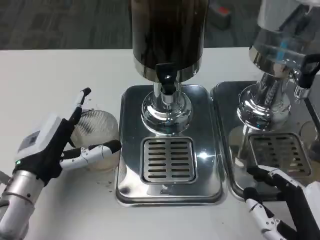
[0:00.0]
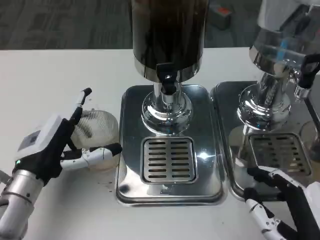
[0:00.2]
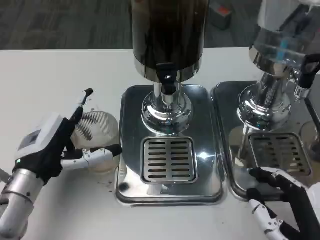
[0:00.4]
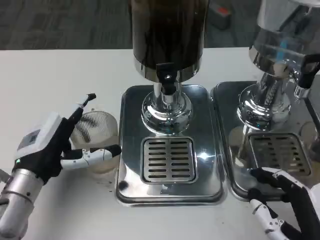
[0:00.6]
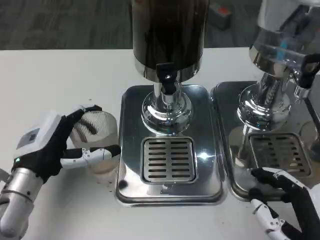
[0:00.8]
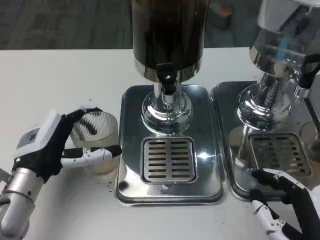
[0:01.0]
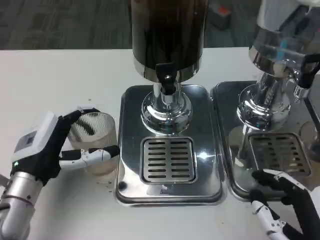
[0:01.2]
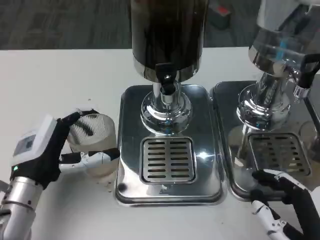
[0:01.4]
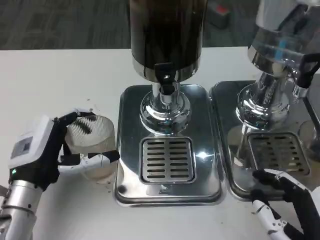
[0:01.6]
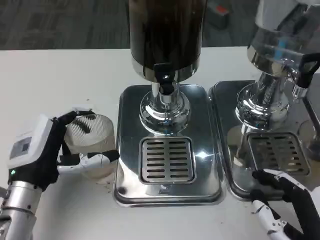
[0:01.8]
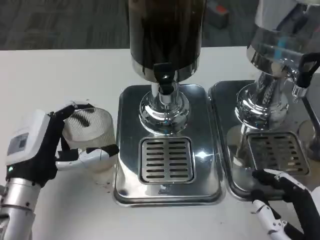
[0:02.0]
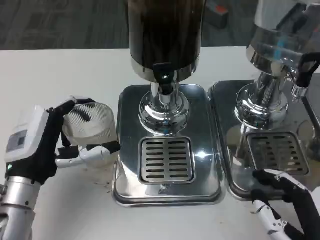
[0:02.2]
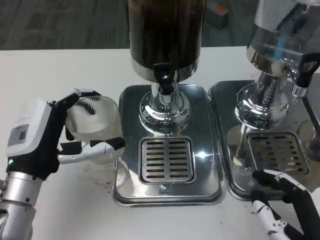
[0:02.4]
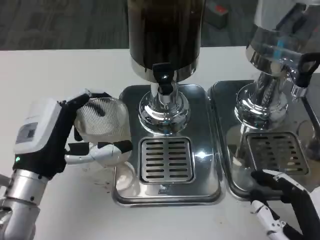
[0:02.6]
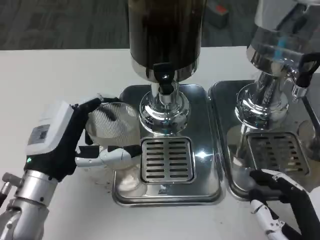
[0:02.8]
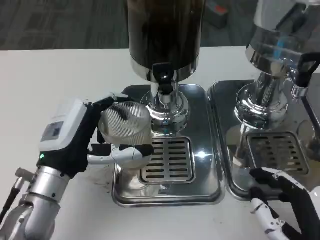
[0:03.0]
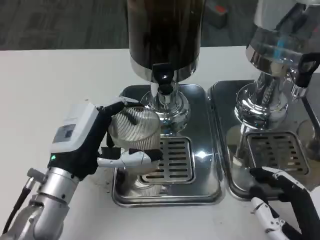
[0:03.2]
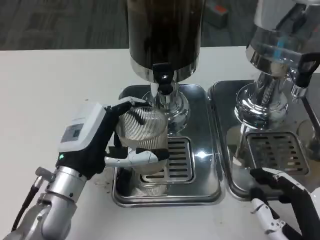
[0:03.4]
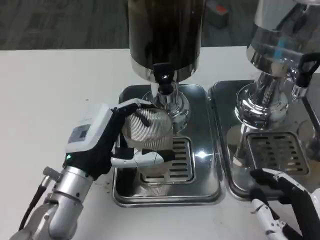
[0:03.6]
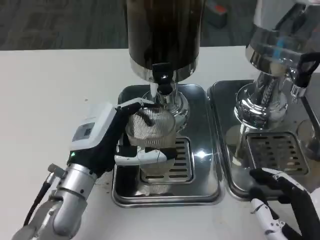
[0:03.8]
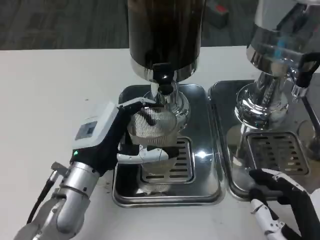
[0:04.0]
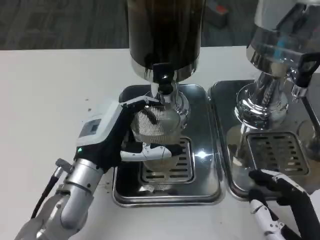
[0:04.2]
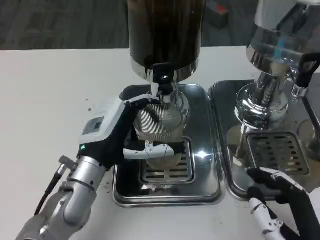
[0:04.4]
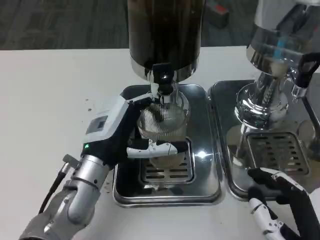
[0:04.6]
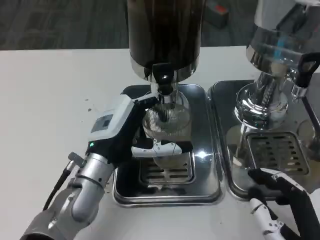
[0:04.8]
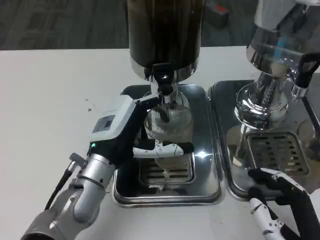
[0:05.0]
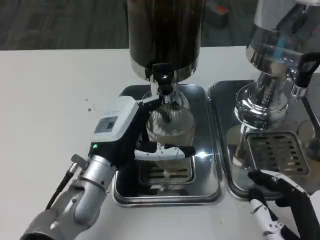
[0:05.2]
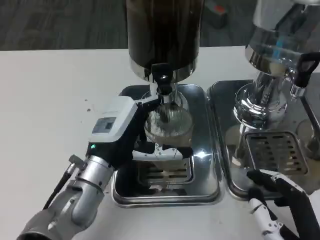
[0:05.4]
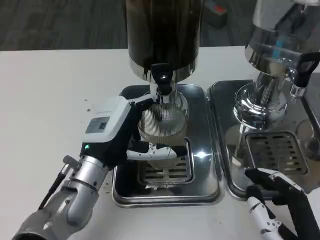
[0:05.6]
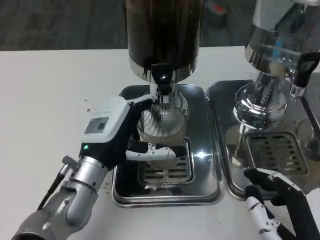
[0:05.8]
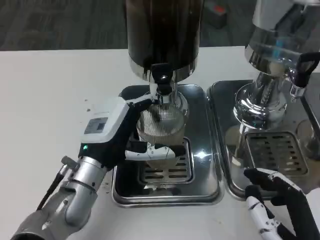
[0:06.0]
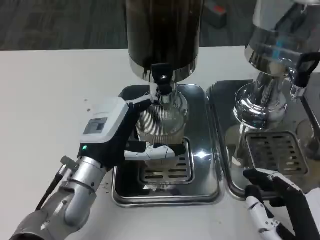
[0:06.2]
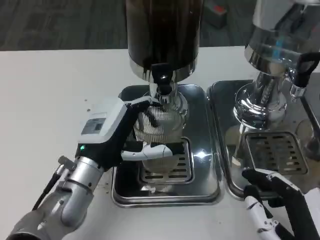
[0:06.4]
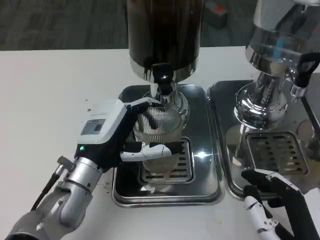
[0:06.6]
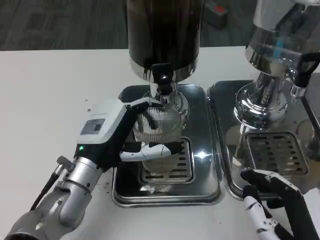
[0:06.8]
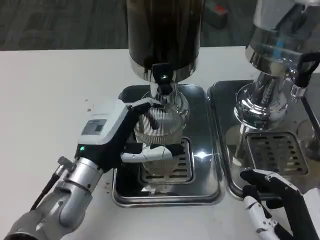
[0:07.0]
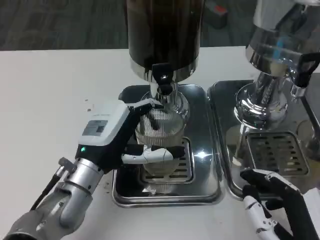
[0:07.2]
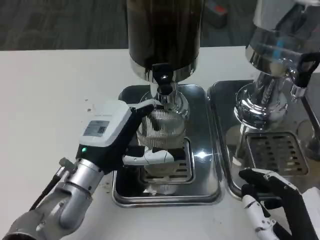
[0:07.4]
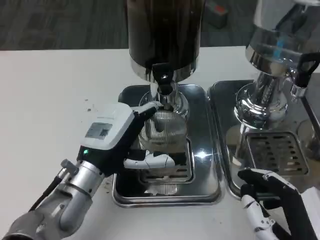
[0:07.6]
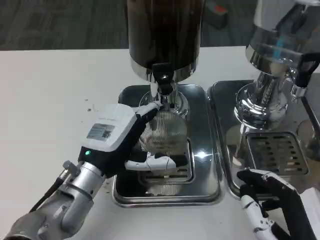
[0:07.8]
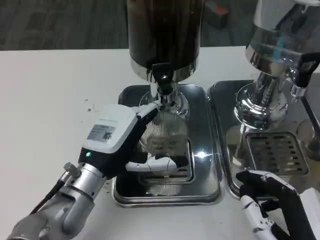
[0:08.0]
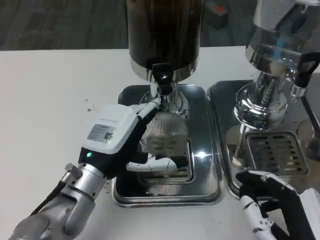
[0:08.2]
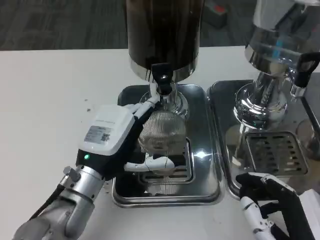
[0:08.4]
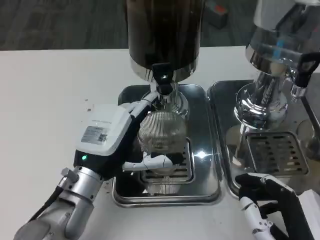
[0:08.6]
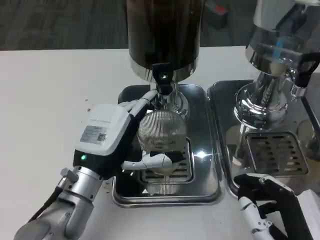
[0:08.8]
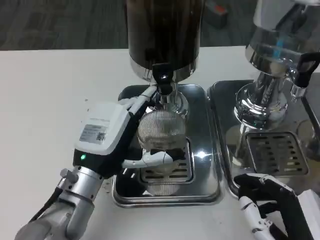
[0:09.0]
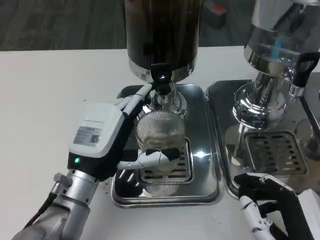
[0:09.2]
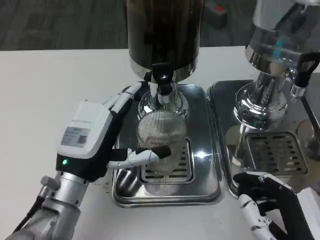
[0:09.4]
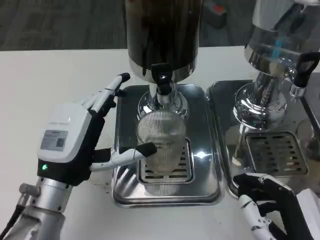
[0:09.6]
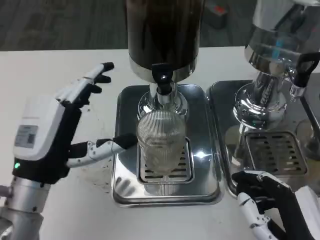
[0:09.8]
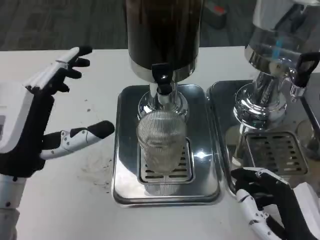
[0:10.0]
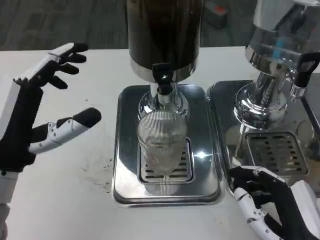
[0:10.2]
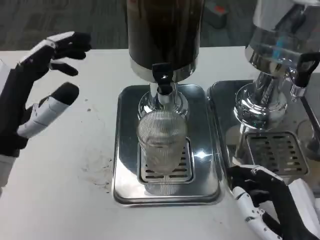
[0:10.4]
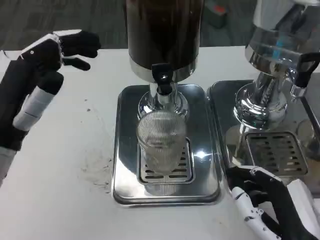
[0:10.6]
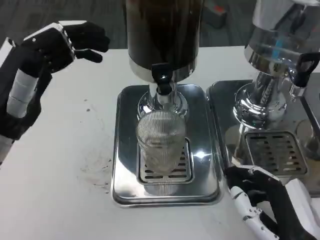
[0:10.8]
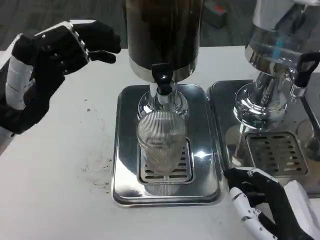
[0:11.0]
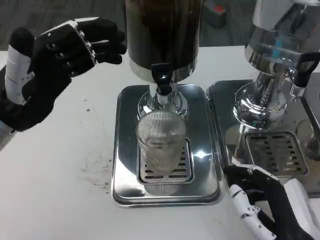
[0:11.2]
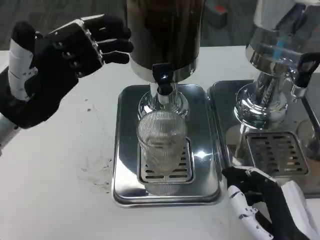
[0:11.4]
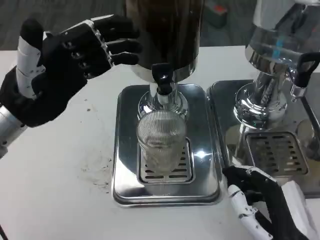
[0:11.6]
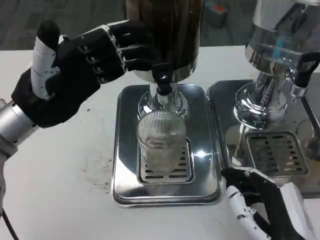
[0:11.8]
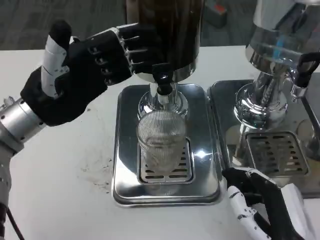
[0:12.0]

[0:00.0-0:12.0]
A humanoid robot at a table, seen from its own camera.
Task of the whole recording: Grasp the cup under the faucet to collect the drink, then remove the cup.
0:00.0 to 0:01.6: There are only small adjustments of the hands.
0:03.0 to 0:04.4: The left hand changes place by approximately 5 cm.
0:04.4 to 0:07.6: There are only small adjustments of the hands.
0:07.6 to 0:09.0: The hands move only a little.
0:09.0 to 0:10.4: The left hand travels to the left and upward by approximately 10 cm.
0:10.4 to 0:12.0: The left hand moves forward, about 10 cm.

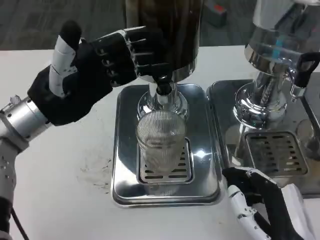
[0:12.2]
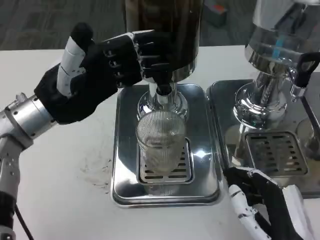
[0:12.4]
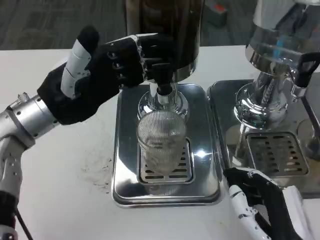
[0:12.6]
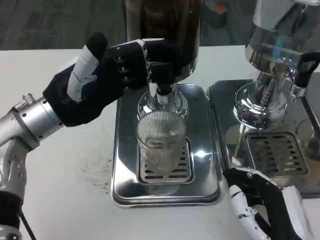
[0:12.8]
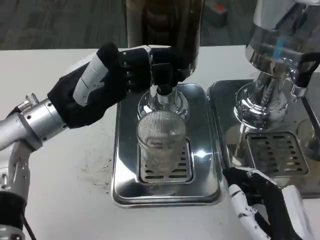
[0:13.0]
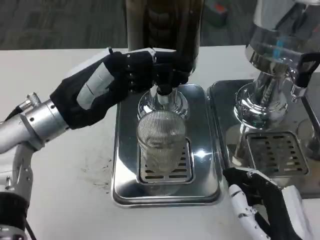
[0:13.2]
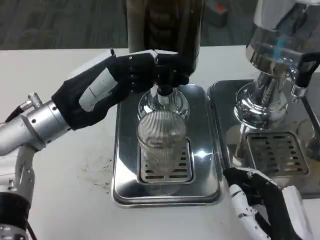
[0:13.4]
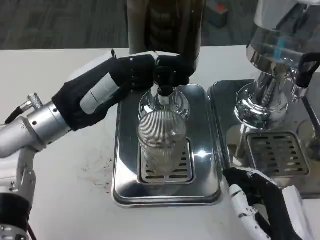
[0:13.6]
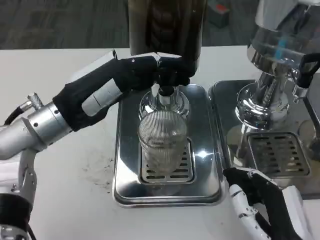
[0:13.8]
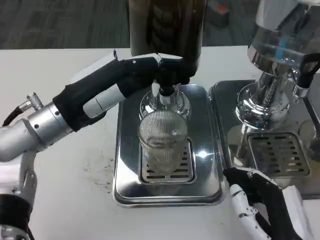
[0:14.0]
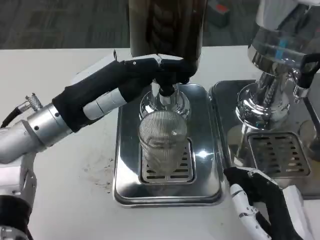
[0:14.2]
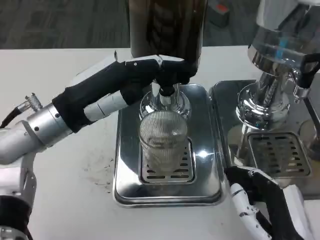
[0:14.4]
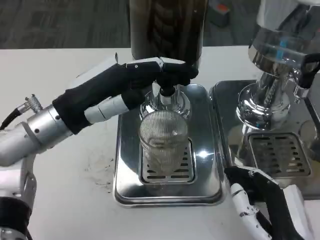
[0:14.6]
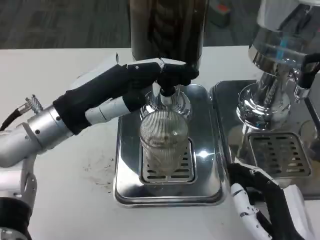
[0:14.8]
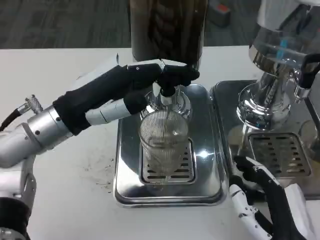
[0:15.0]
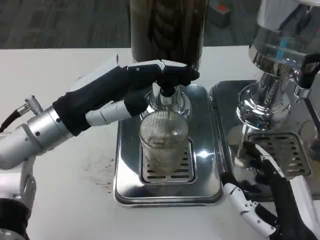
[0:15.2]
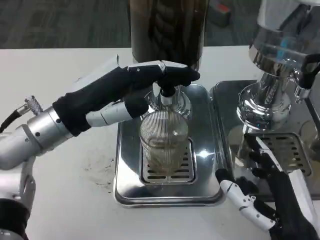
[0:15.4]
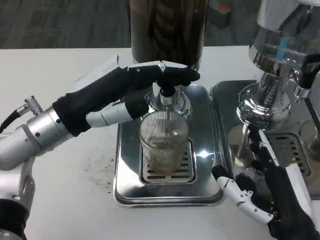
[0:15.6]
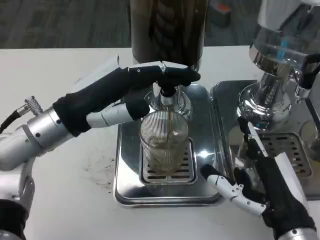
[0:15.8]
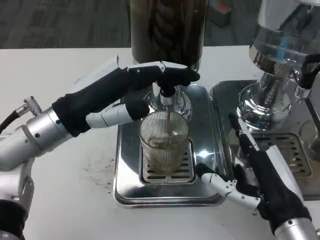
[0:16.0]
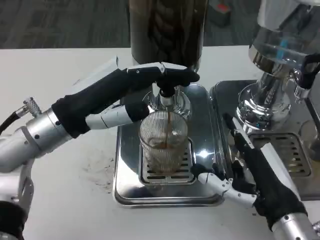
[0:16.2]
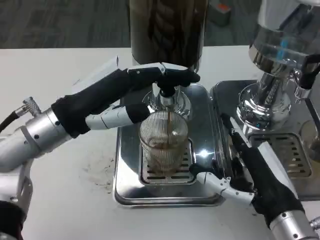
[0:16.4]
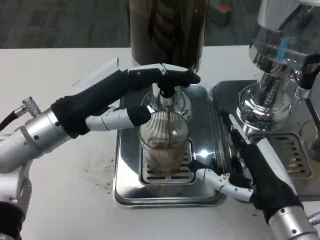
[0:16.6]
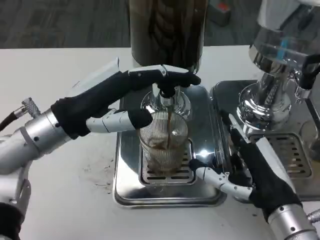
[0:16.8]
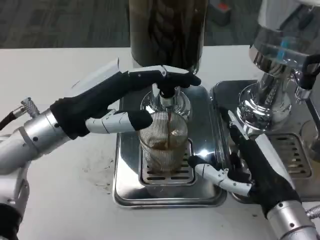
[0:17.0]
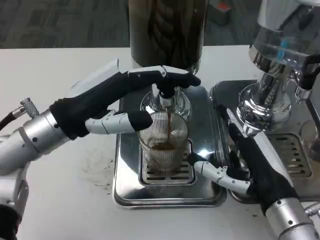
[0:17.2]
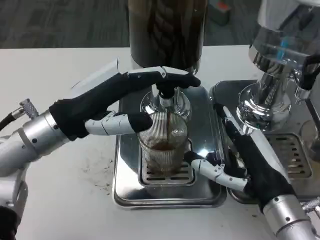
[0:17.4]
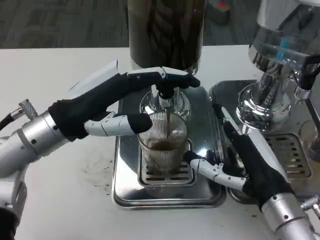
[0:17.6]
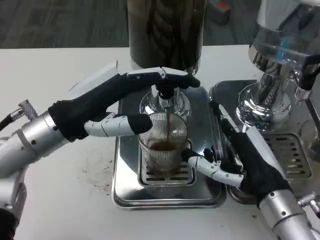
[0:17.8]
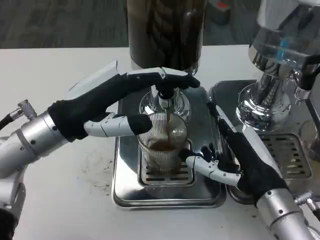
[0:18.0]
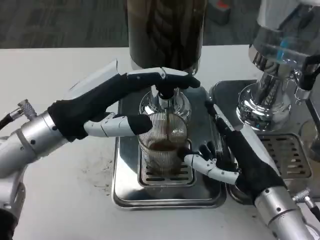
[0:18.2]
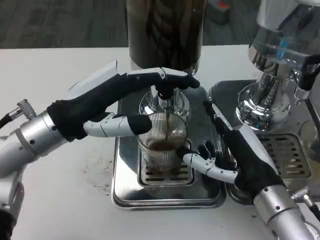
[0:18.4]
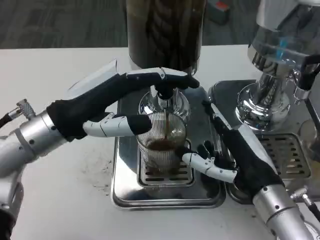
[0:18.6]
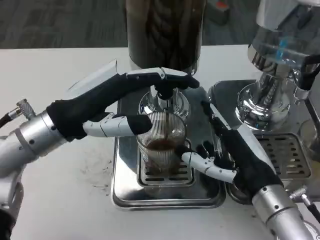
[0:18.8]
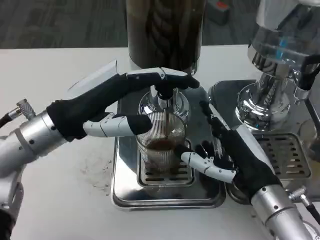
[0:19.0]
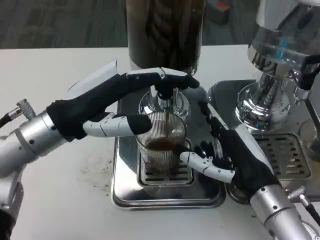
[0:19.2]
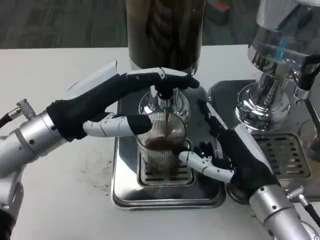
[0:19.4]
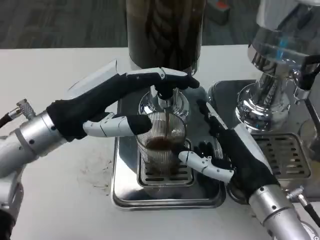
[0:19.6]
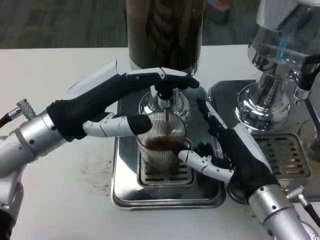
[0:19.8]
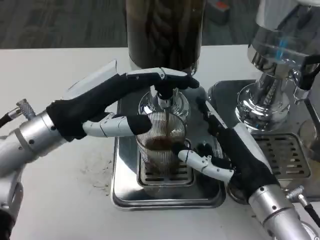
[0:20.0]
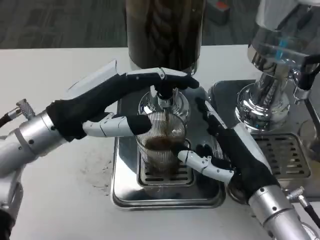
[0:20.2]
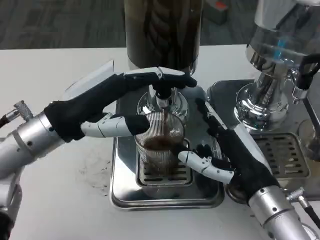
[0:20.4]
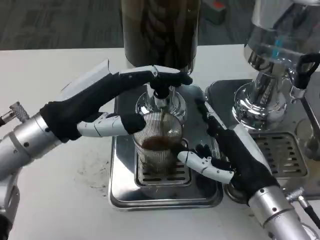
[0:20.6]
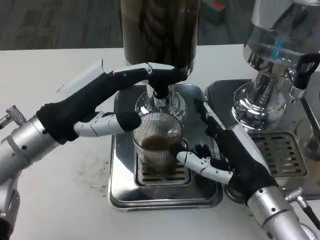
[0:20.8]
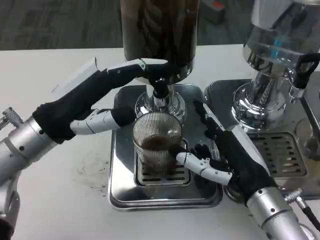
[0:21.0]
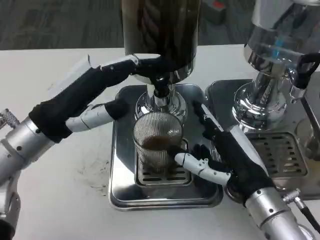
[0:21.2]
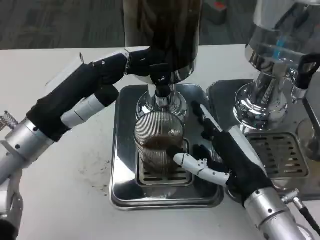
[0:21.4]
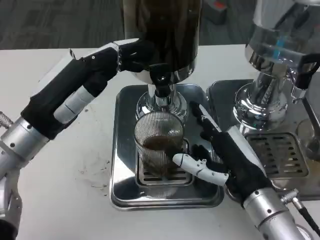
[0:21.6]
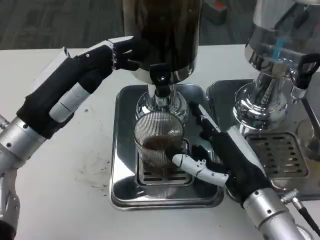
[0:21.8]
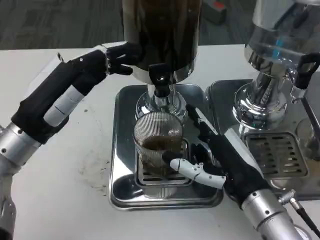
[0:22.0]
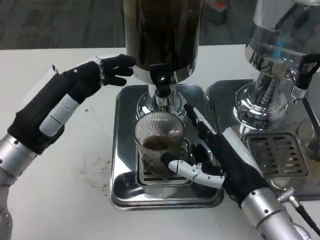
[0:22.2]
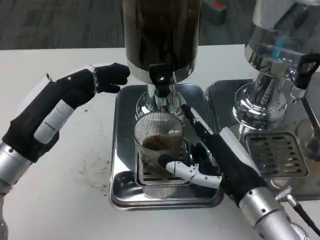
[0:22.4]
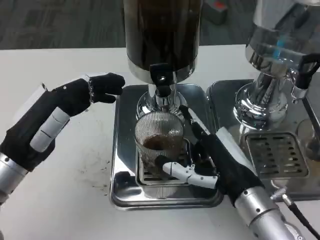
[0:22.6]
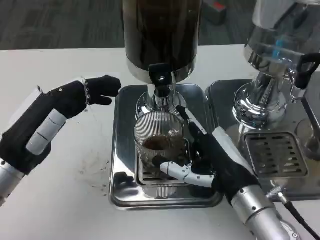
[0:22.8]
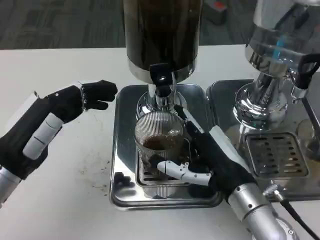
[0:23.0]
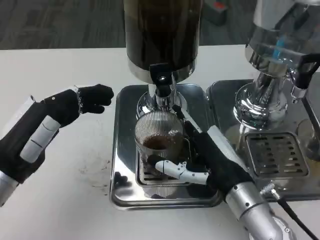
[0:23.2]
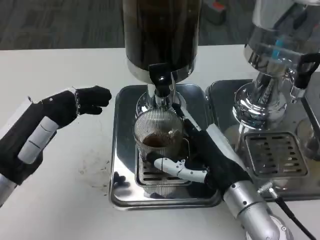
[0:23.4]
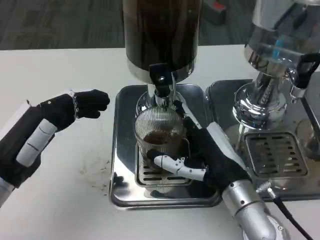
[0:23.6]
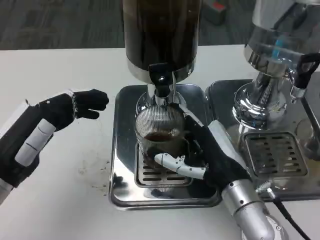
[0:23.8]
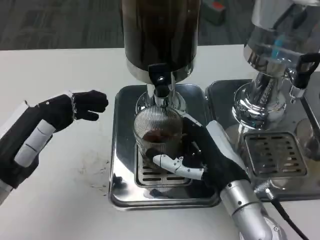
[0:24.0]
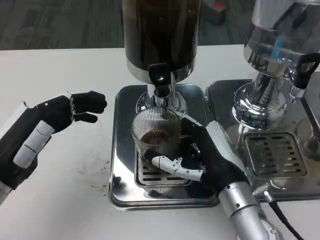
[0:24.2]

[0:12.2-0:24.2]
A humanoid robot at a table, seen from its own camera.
Task of the whole recording: Grasp the cup under the faucet to collect the drink, then remove the cup.
0:13.8 to 0:15.2: There are only small adjustments of the hands.
0:15.2 to 0:16.6: The right hand is displaced forward by some 5 cm.
0:18.2 to 0:19.8: Both hands stay about where they are.
0:21.2 to 0:22.6: The left hand ends up roughly 5 cm from where it was.
